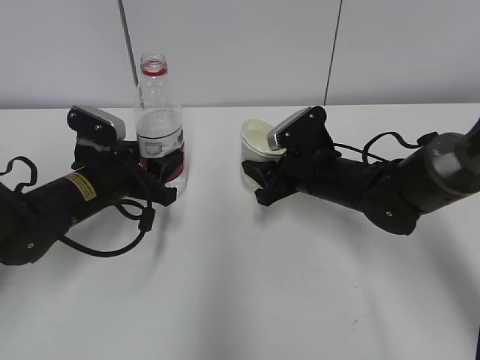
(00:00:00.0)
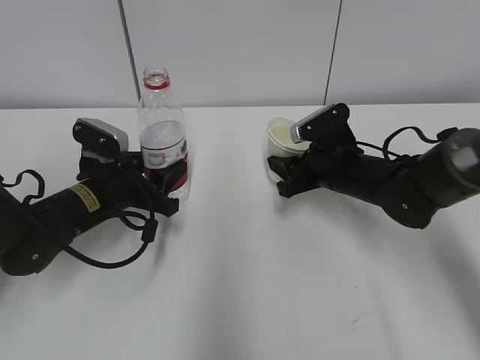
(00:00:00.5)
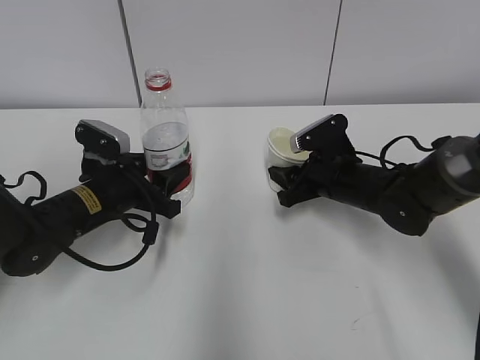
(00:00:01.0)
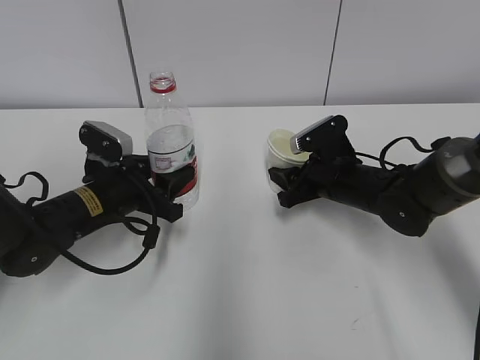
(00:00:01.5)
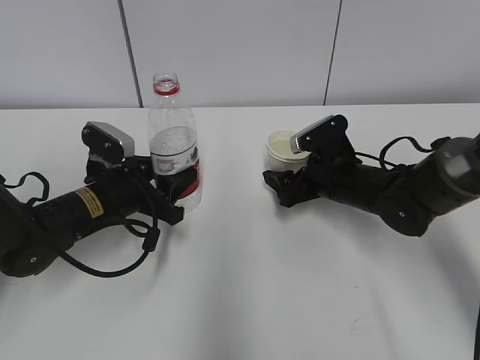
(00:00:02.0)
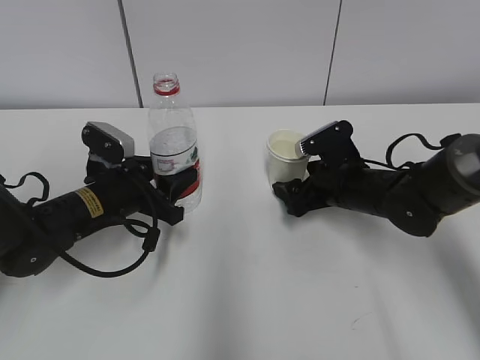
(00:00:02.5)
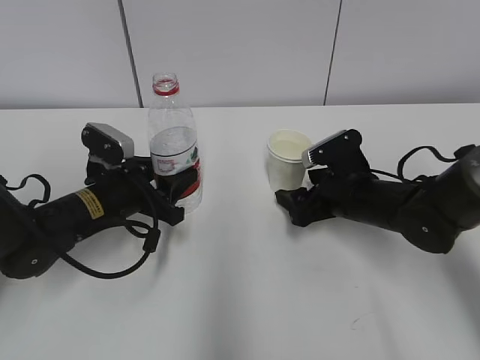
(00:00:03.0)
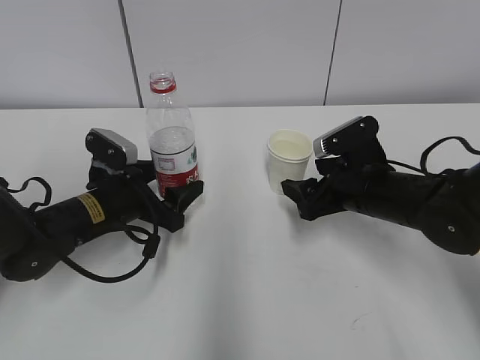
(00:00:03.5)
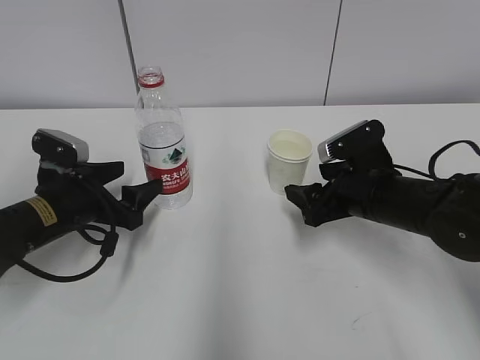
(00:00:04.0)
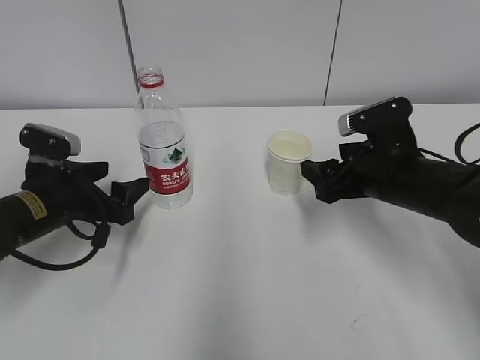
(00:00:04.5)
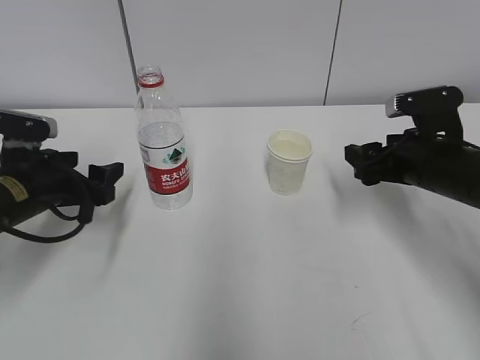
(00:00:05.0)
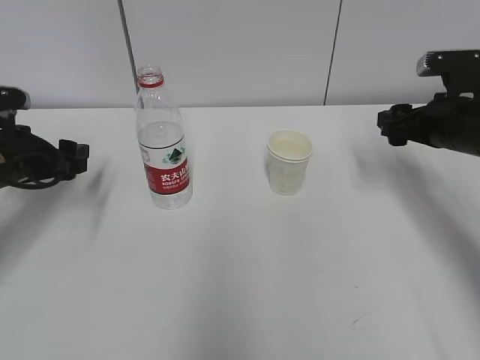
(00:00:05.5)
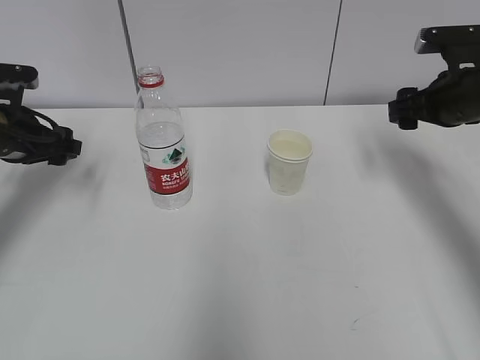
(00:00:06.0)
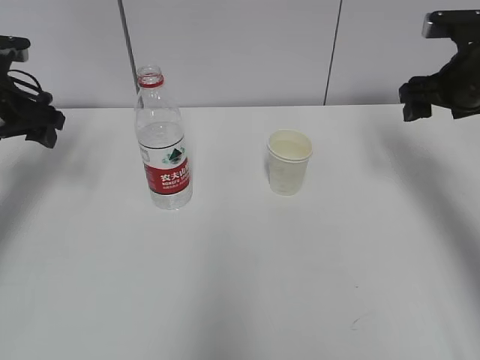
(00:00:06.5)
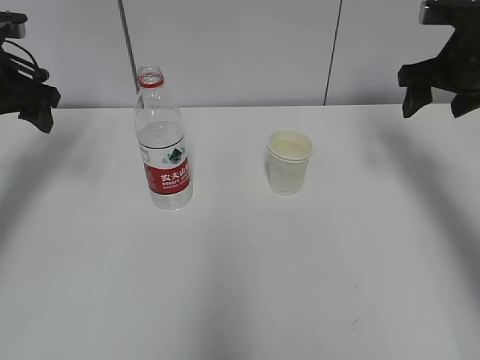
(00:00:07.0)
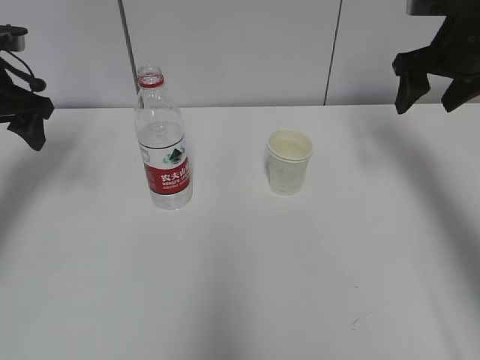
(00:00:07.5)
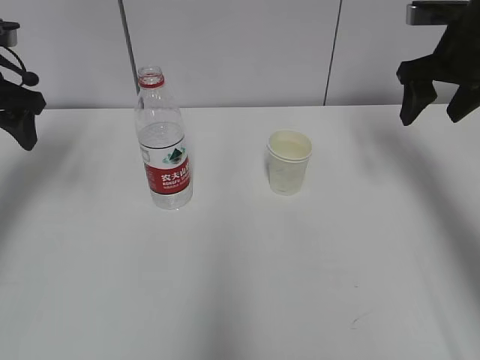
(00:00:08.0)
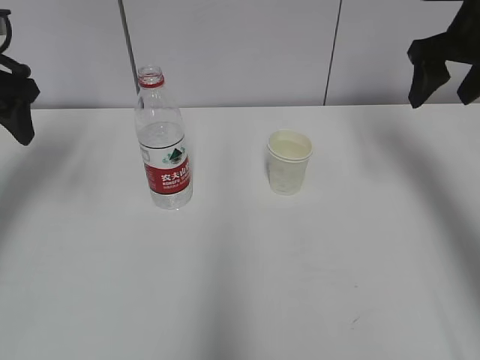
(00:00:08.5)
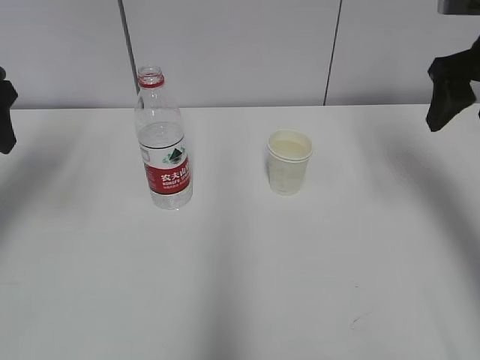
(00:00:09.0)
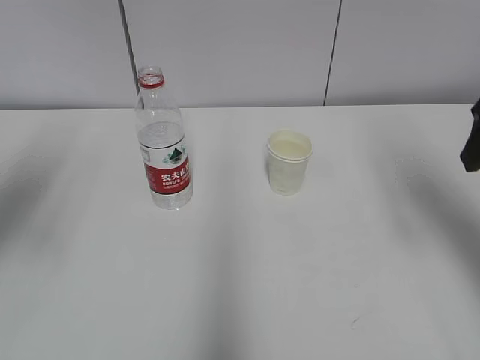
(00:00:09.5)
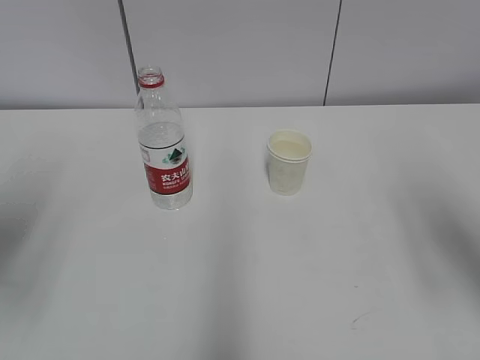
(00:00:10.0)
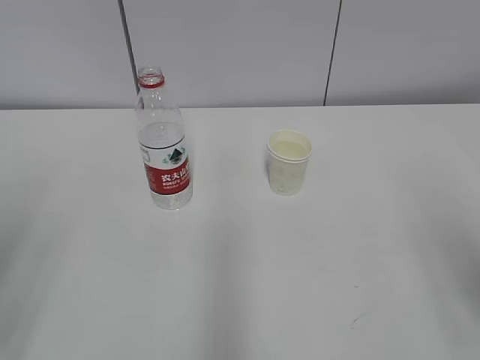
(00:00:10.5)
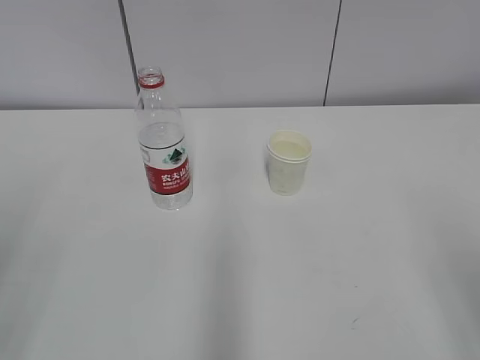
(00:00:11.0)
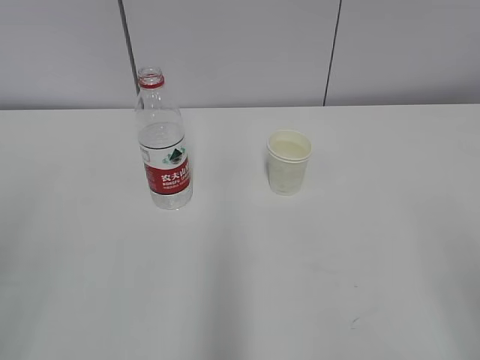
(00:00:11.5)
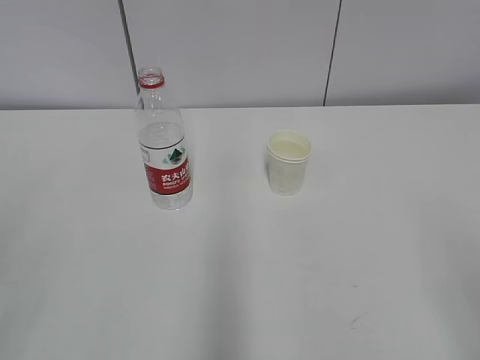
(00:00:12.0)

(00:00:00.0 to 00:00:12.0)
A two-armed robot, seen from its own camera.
00:00:00.0 - 00:00:02.0: The right gripper opens its fingers.
00:00:02.0 - 00:00:04.0: The right gripper travels backward by roughly 5 cm. Meanwhile the left gripper opens.
00:00:04.0 - 00:00:06.0: The right gripper shifts approximately 15 cm to the right, upward and forward. Meanwhile the left gripper shifts approximately 15 cm to the left, upward and forward.
00:00:06.0 - 00:00:08.0: Both grippers travel together upward, approximately 10 cm.
00:00:08.0 - 00:00:10.0: The two grippers go roughly 20 cm backward.
00:00:10.0 - 00:00:12.0: The grippers both shift backward by about 15 cm.

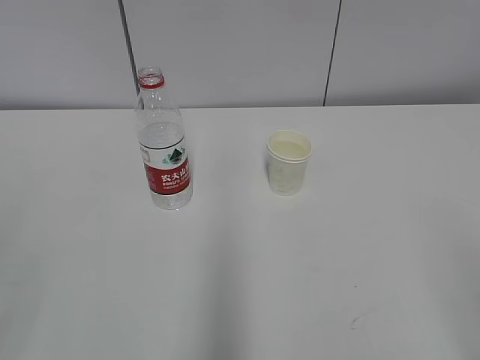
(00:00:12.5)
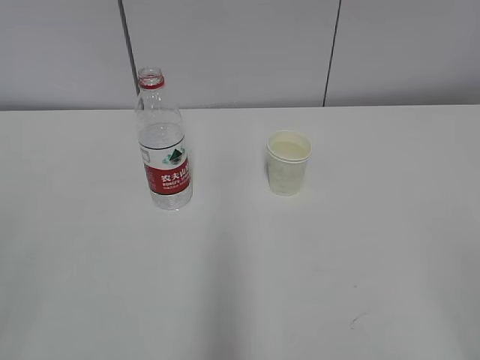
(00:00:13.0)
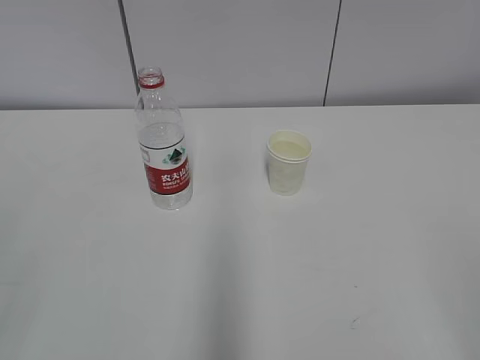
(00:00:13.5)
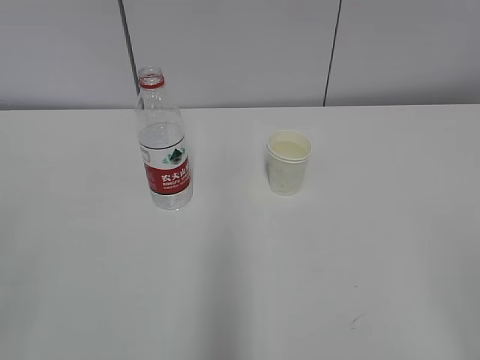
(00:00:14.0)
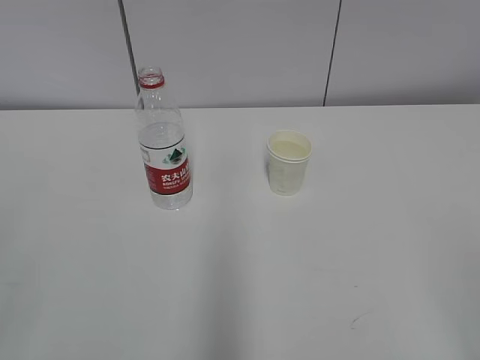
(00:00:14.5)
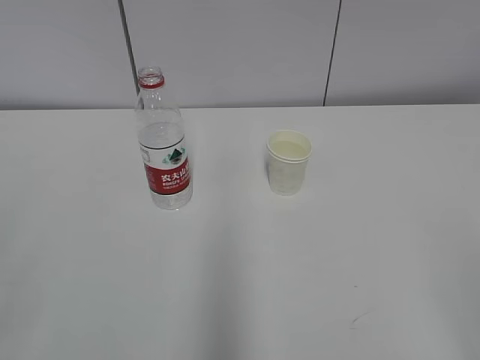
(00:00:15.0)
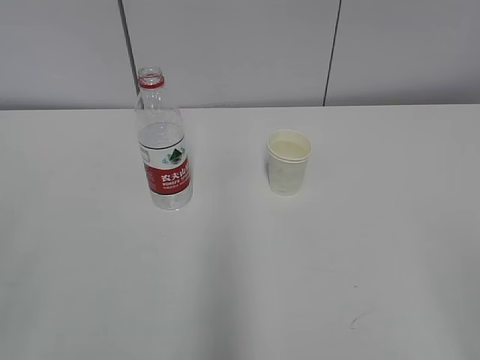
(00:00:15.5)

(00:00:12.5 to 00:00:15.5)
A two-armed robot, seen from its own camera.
00:00:14.0 - 00:00:15.5: Both grippers stay about where they are.

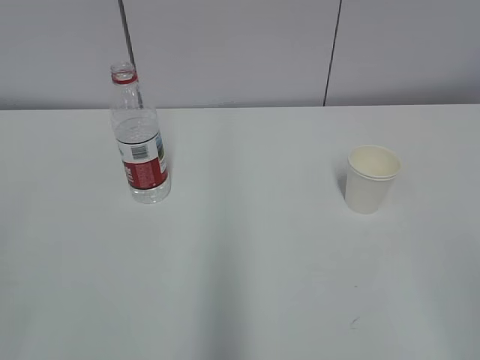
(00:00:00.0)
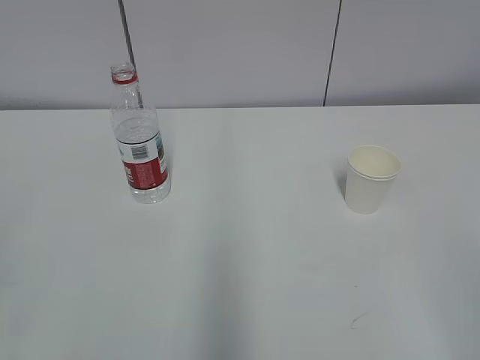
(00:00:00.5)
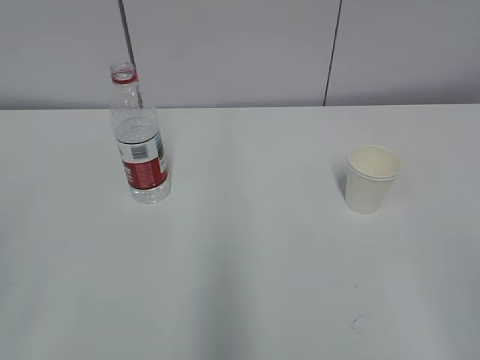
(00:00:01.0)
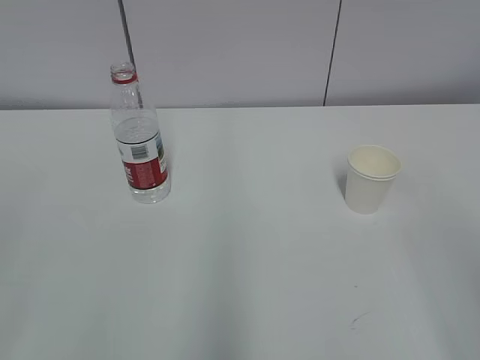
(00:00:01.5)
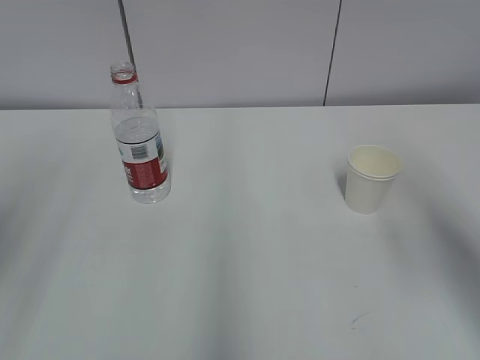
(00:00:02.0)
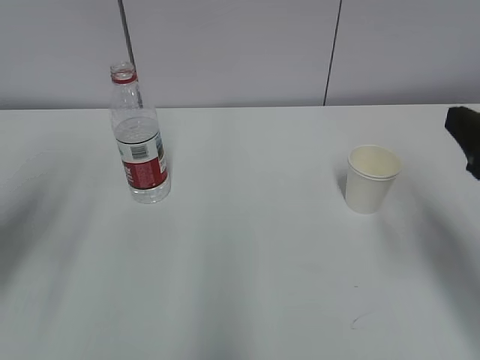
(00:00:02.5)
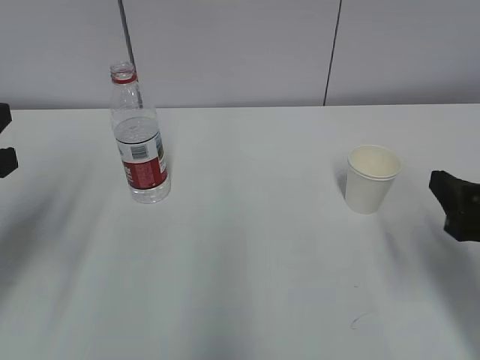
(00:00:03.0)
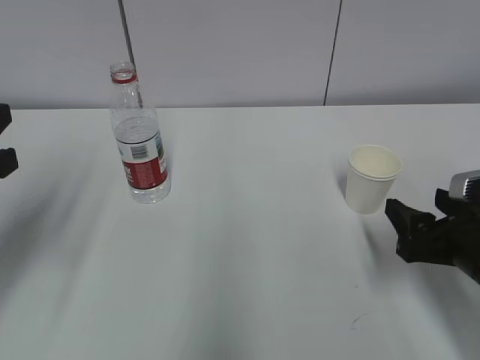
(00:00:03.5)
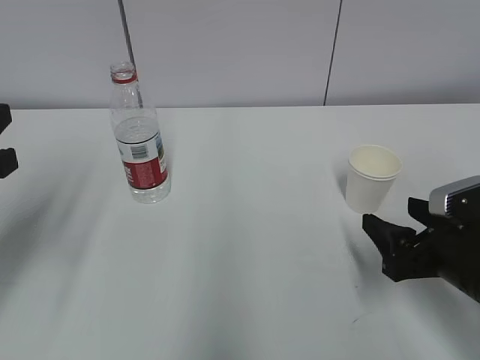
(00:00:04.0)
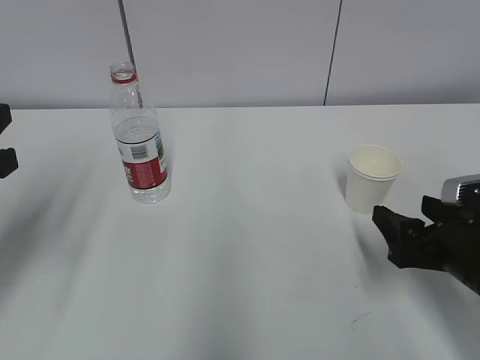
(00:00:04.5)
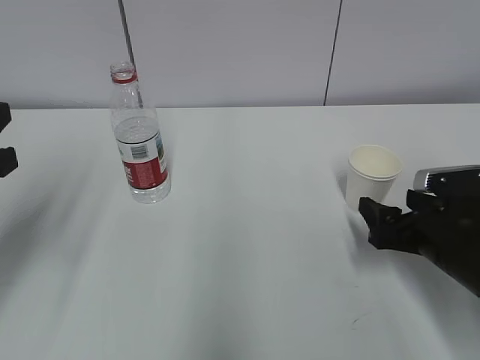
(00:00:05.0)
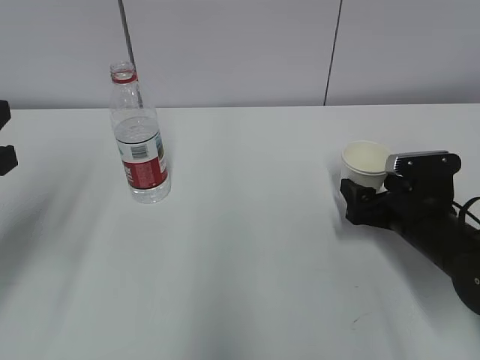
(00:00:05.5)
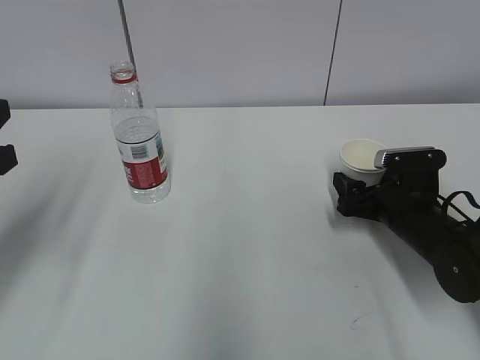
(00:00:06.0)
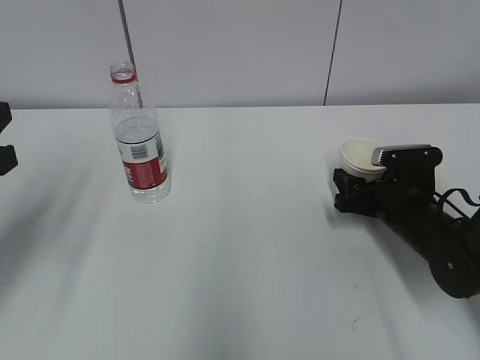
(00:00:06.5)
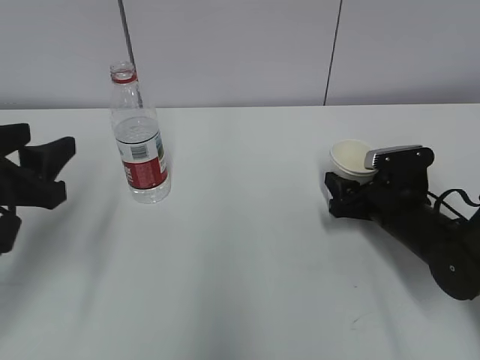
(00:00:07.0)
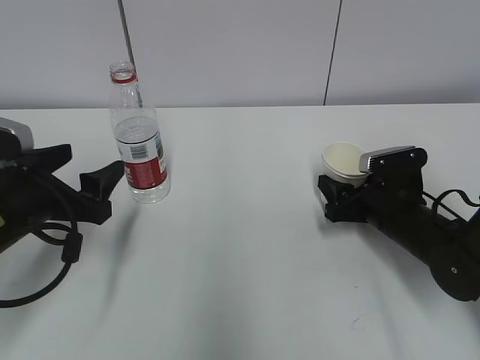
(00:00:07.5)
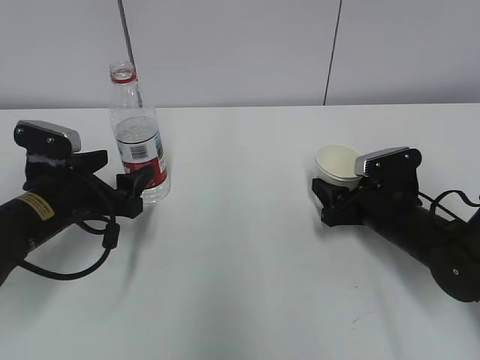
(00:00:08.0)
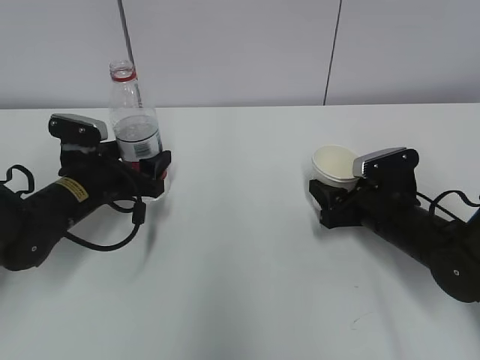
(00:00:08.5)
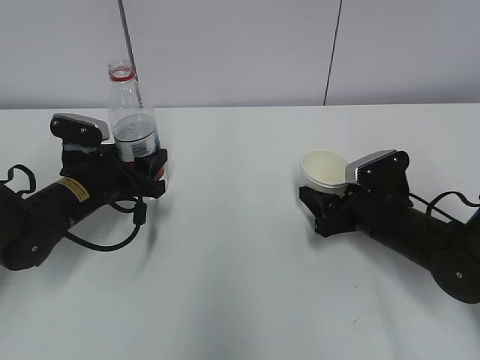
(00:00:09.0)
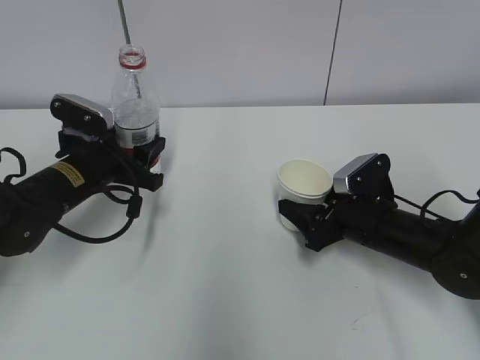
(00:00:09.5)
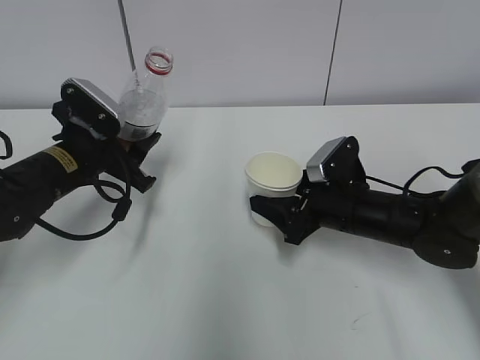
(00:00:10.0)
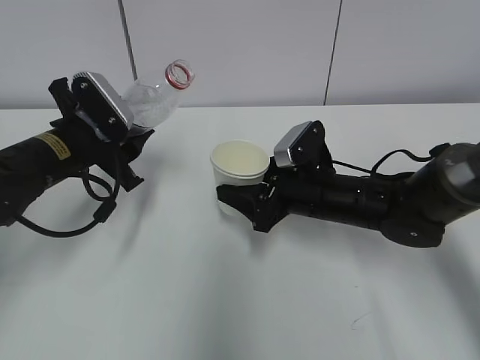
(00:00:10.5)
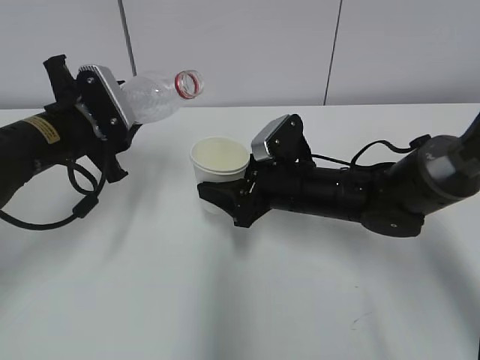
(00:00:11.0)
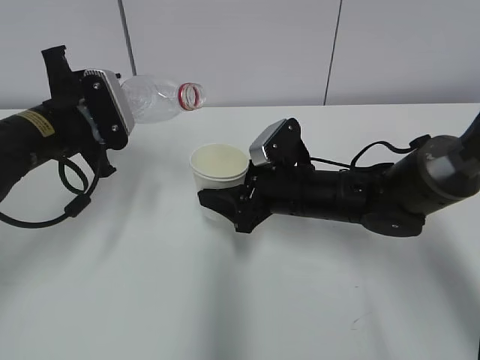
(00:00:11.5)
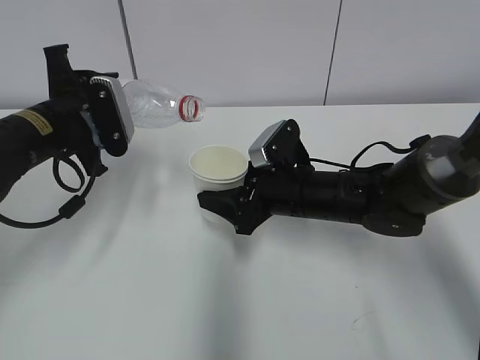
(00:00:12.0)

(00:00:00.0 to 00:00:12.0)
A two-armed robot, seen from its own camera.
Step, 00:00:00.0 - 00:00:05.0: Grab the paper cup with the right hand.
Step, 00:00:05.5 - 00:00:07.5: Grab the water bottle with the left hand.
Step, 00:00:08.0 - 00:00:10.5: Lift the paper cup with the right hand.
00:00:02.0 - 00:00:04.0: The right gripper goes about 20 cm downward; the left gripper shifts approximately 15 cm downward and forward.
00:00:04.0 - 00:00:06.0: The right gripper is displaced forward and downward by some 15 cm, and opens.
00:00:06.0 - 00:00:08.0: The right gripper closes. Meanwhile the left gripper is displaced downward, forward and to the right by some 15 cm, and opens.
00:00:08.0 - 00:00:10.0: The left gripper moves about 5 cm, and closes up. The right gripper moves to the left, some 5 cm.
00:00:10.0 - 00:00:12.0: The right gripper goes about 5 cm to the left. The left gripper shifts approximately 5 cm upward.
